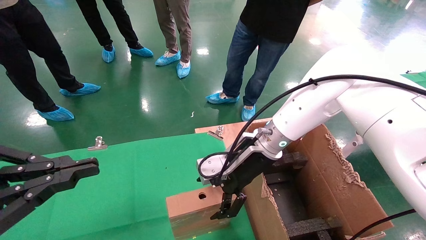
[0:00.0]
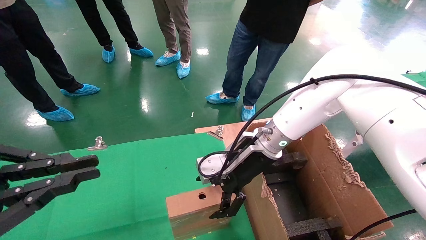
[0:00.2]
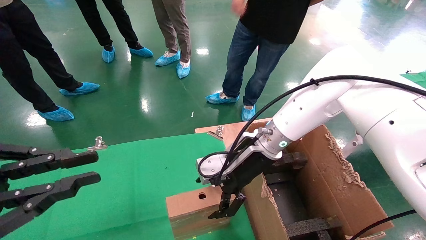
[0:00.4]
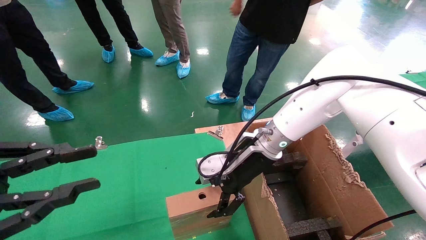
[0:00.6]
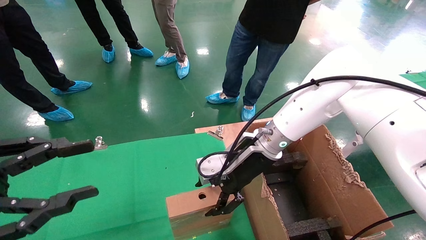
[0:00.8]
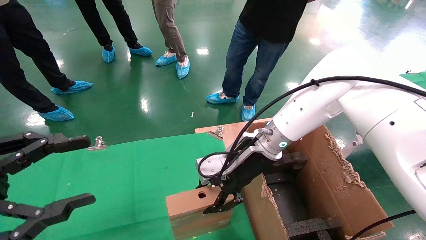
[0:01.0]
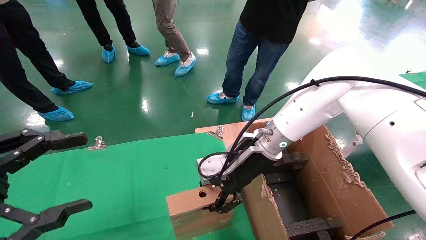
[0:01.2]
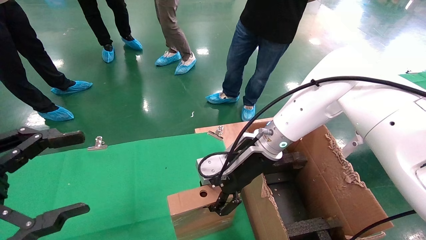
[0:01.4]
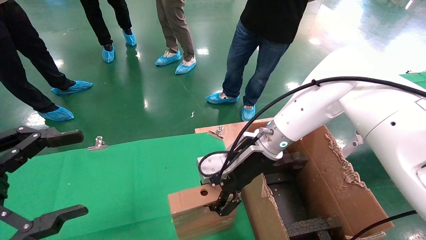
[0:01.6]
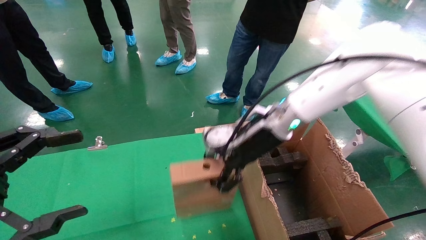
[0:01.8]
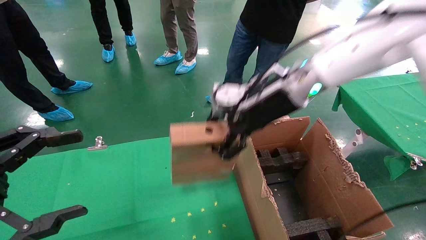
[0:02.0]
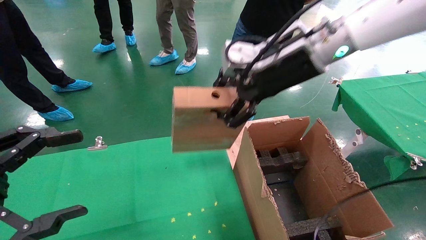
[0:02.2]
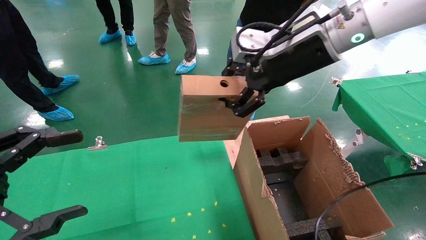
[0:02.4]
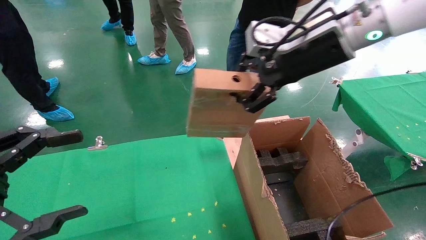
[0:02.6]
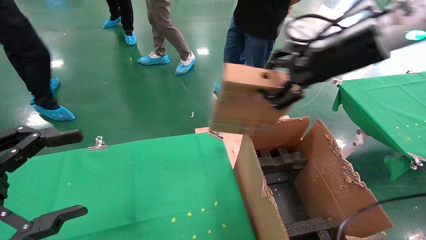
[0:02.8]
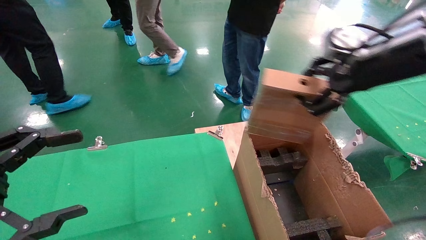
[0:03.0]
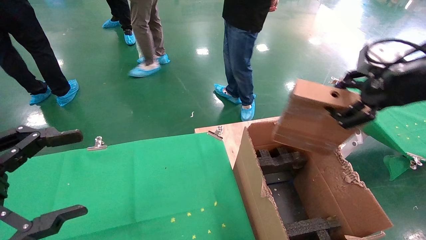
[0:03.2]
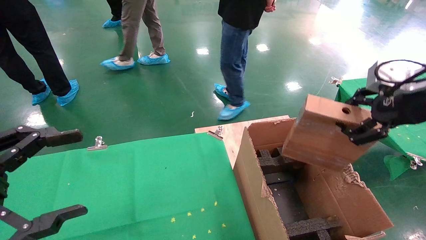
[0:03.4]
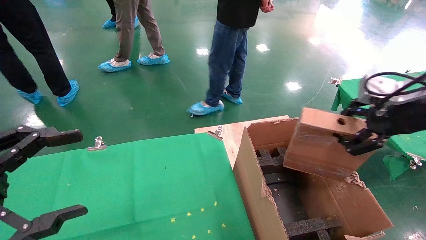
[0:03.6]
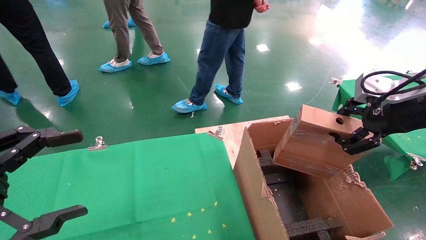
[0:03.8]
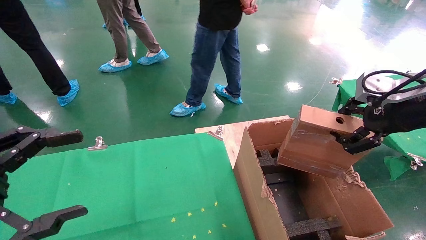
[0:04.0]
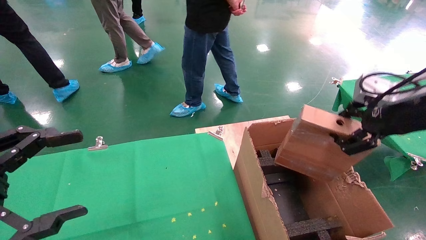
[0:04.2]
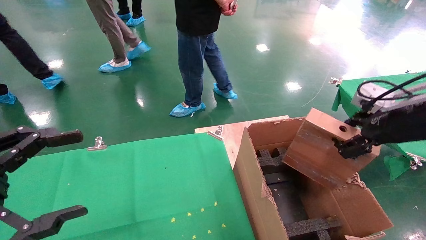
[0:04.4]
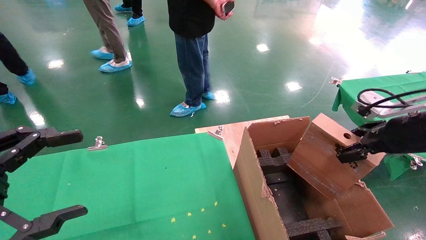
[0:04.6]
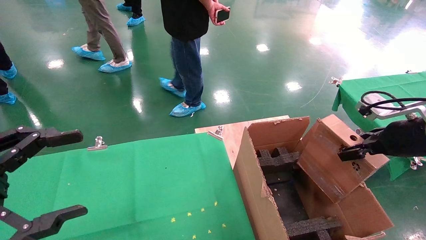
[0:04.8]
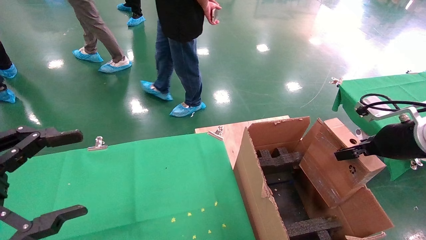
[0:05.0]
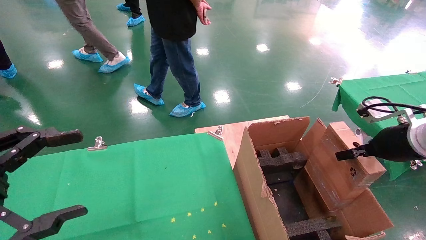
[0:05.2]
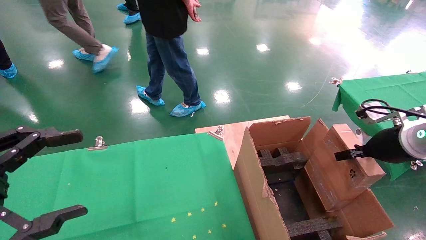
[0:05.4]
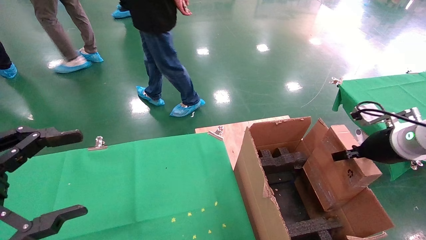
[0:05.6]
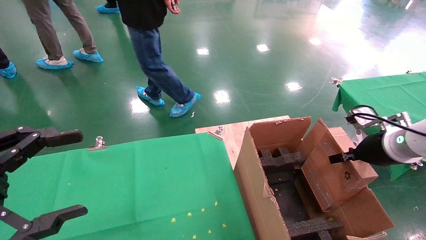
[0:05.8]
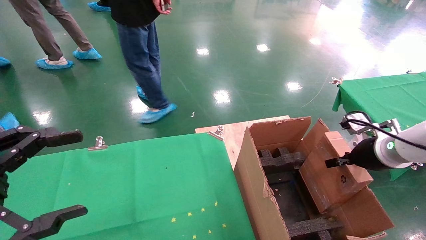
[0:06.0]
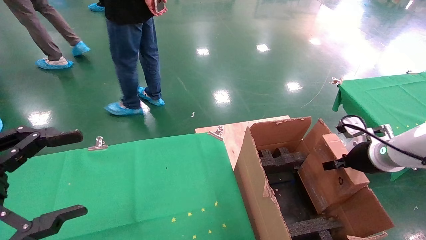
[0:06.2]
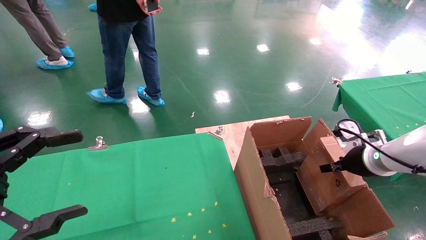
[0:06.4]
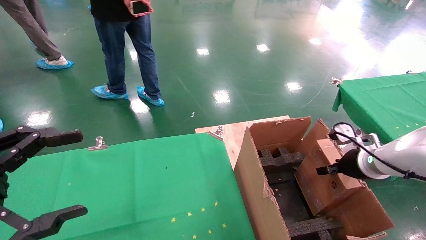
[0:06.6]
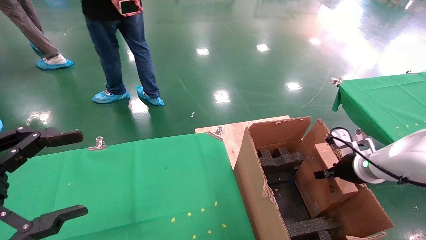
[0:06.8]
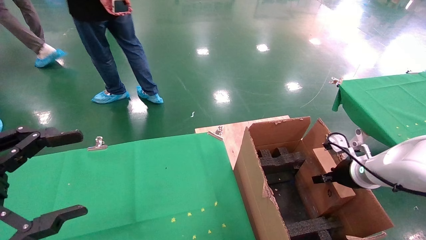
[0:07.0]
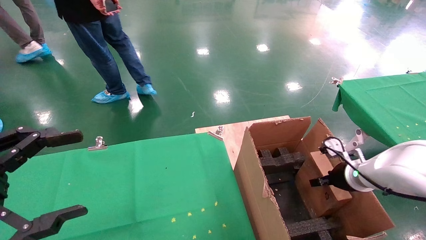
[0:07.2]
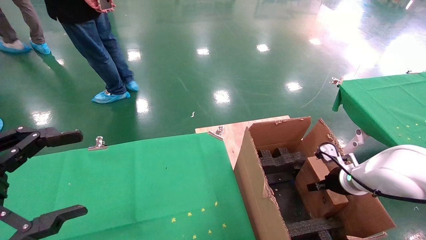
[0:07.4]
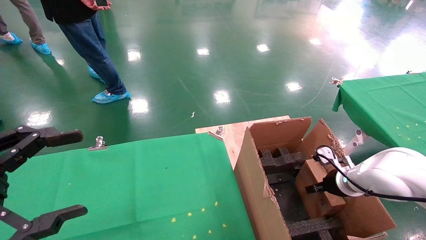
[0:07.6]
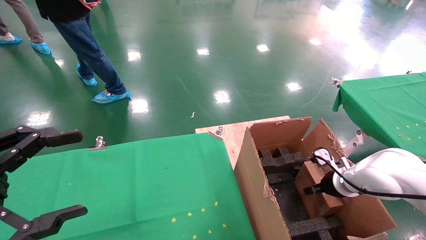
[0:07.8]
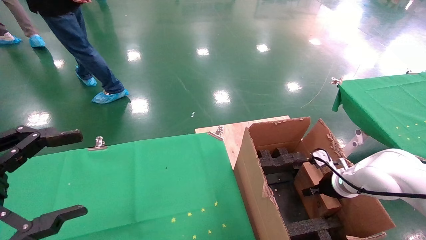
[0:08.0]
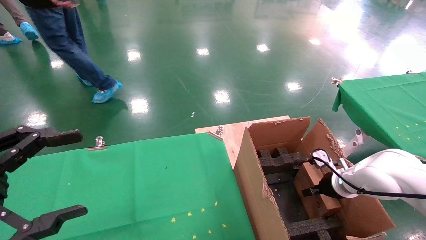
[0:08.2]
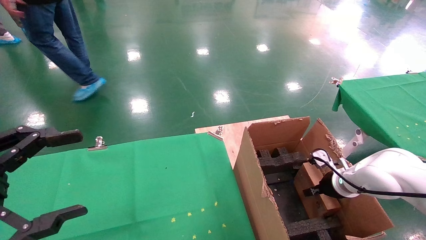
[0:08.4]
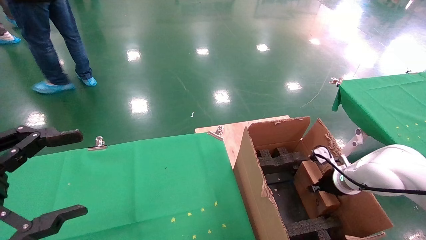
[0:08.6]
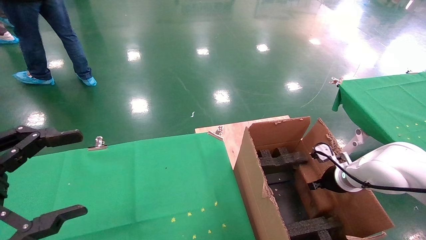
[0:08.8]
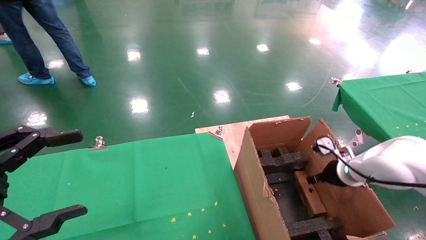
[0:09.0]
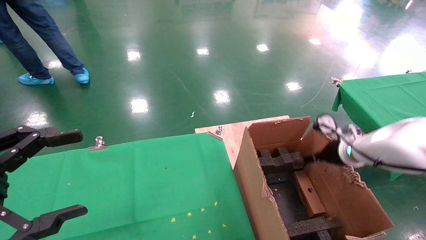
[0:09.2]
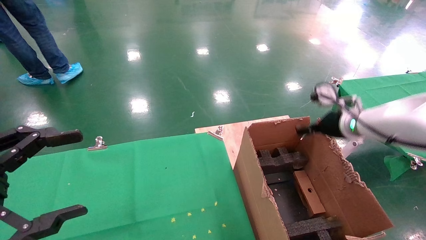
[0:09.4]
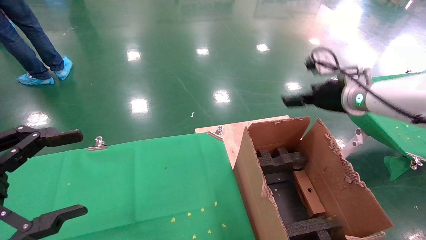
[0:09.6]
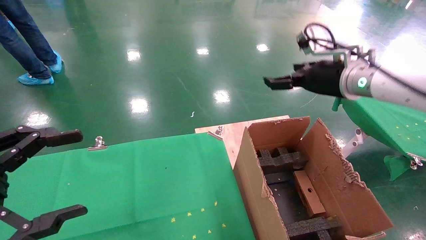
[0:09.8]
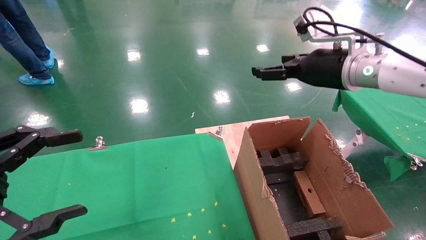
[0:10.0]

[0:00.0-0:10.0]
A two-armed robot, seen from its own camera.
Task of the whole recording: using a robotic arm to pick up a cardboard box and palace it the carton.
Step, 0:01.4 to 0:09.4: Place the mouse and the power cord paper box into the container.
0:00.0 to 0:01.4: The left gripper opens up; the right gripper closes.
0:01.4 to 0:02.8: The right gripper is displaced upward and to the right by some 25 cm.
0:02.8 to 0:04.2: The right gripper goes some 15 cm to the right, downward and backward.
0:04.2 to 0:05.8: The right gripper goes some 15 cm downward and forward.
0:05.8 to 0:07.2: The right gripper moves downward, approximately 10 cm.
0:07.2 to 0:08.6: The grippers move only a little.
0:08.6 to 0:10.0: The right gripper heads upward, covering about 25 cm, and opens.

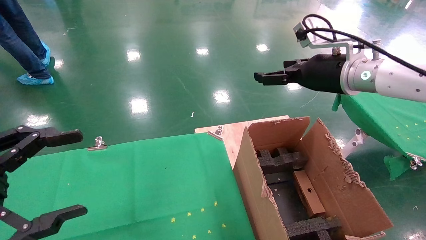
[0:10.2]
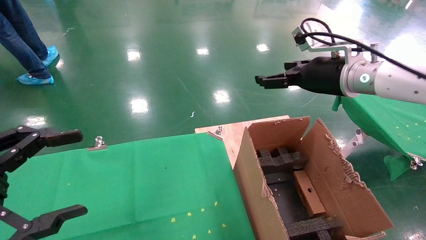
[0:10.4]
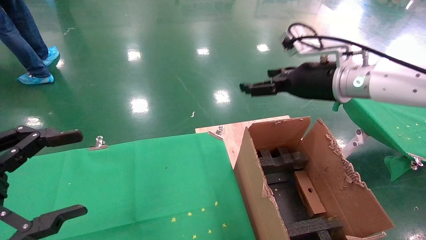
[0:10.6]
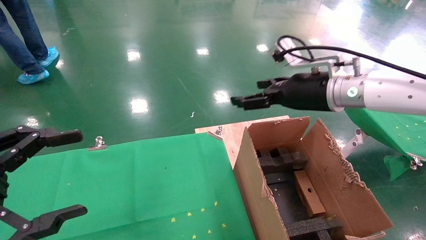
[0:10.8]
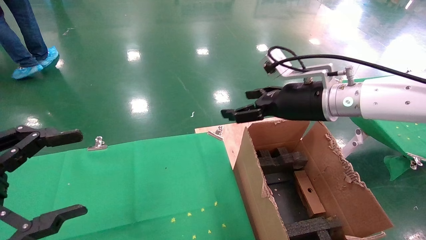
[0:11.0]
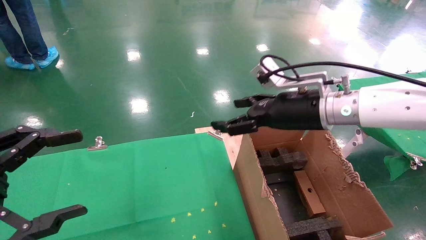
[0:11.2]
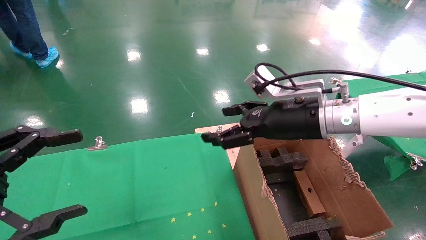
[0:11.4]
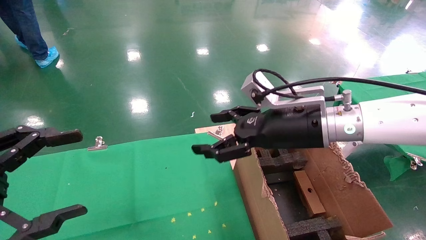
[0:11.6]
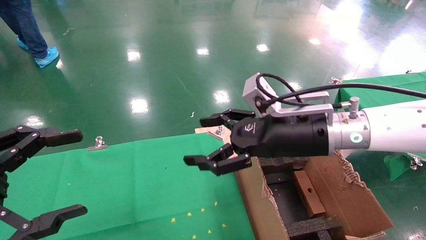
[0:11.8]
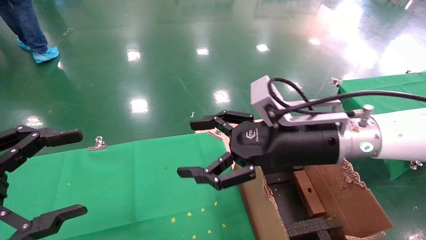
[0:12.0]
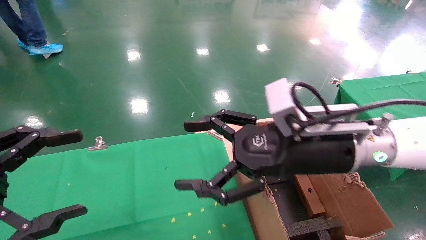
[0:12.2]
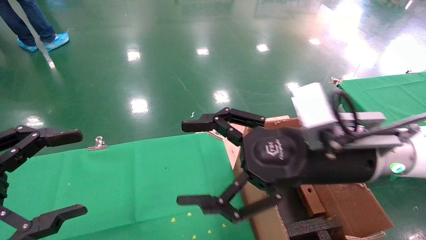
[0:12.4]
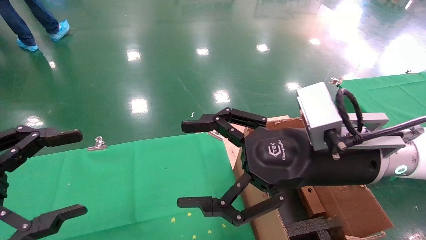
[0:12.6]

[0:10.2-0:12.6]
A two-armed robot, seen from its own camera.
Task of the whole recording: using a robotic arm to pick up a cardboard box and palace it the carton.
0:10.2 to 0:11.4: The right gripper travels to the left and downward by roughly 10 cm.
0:11.4 to 0:12.6: The right gripper moves backward, approximately 10 cm.
